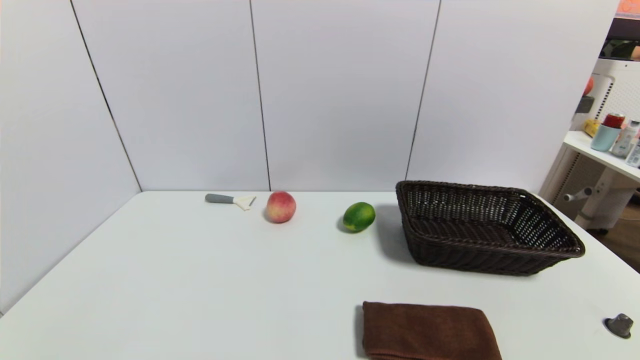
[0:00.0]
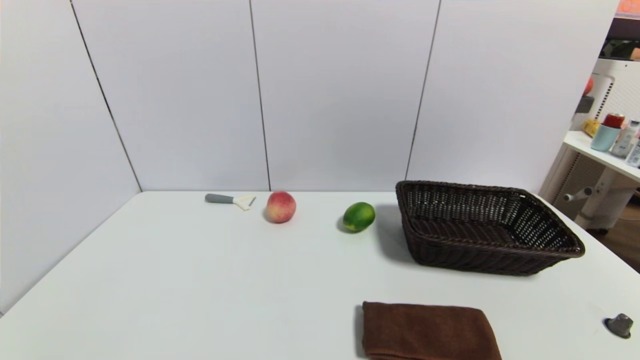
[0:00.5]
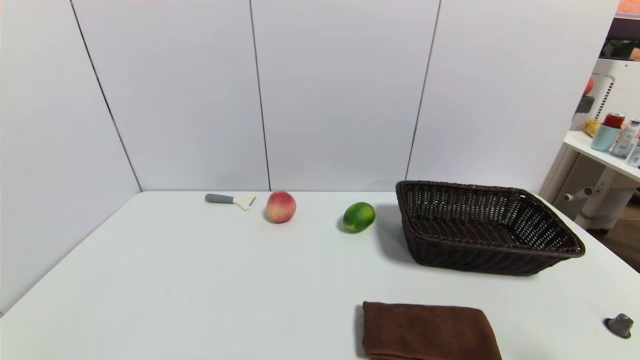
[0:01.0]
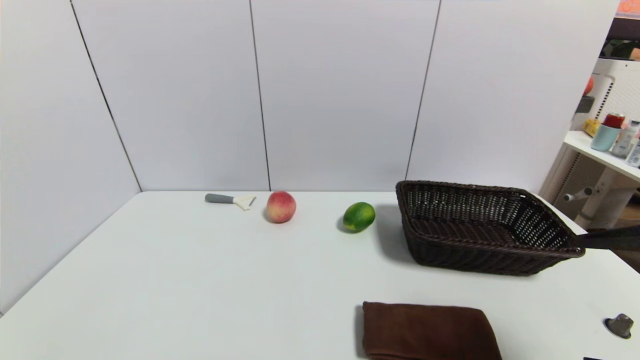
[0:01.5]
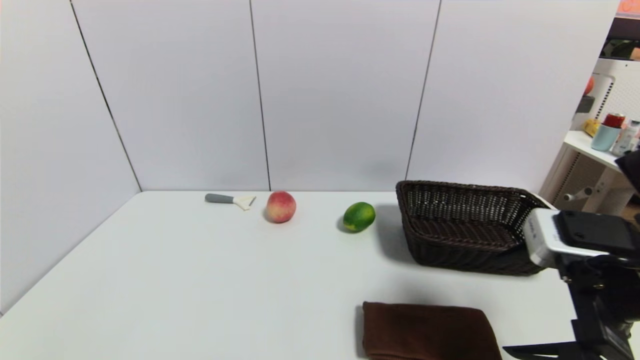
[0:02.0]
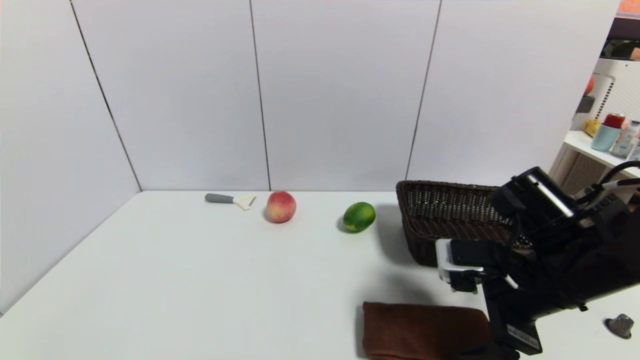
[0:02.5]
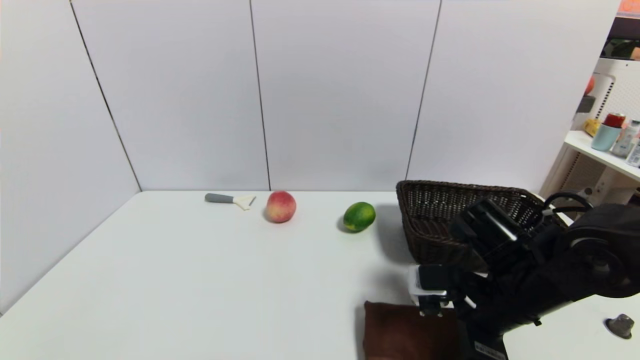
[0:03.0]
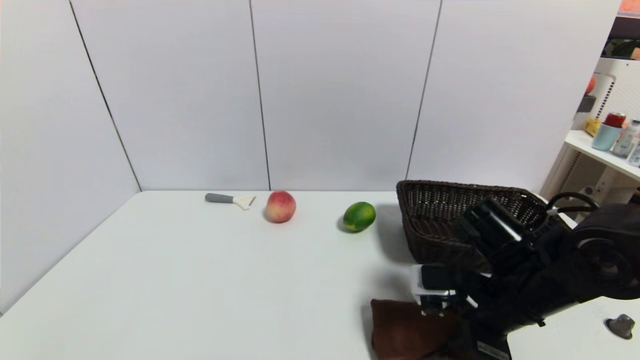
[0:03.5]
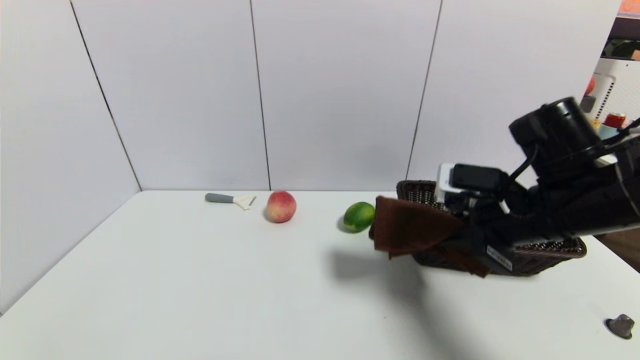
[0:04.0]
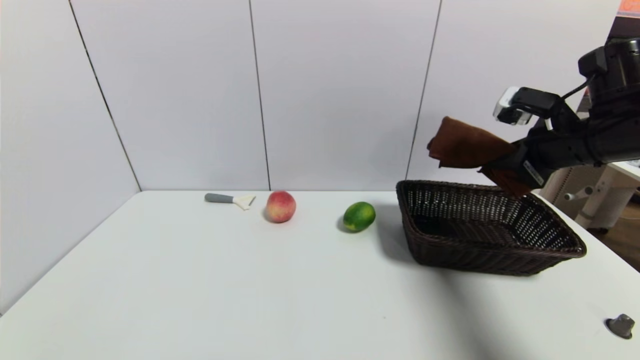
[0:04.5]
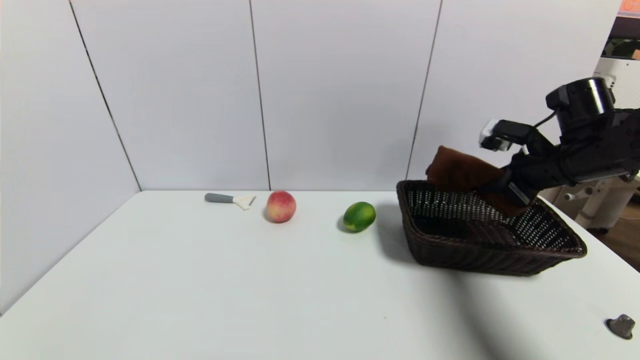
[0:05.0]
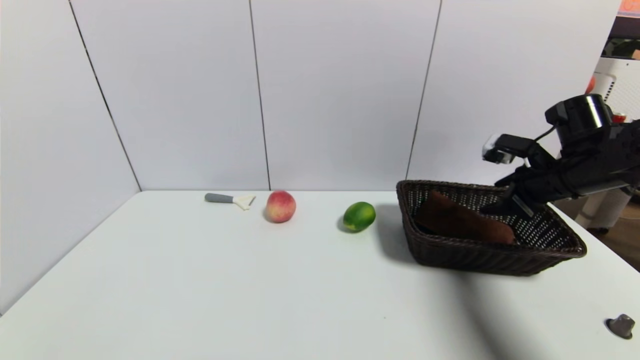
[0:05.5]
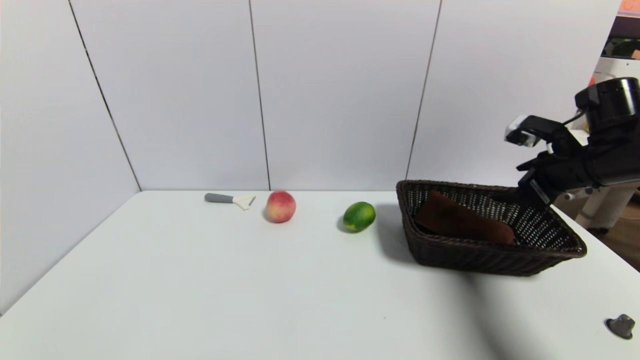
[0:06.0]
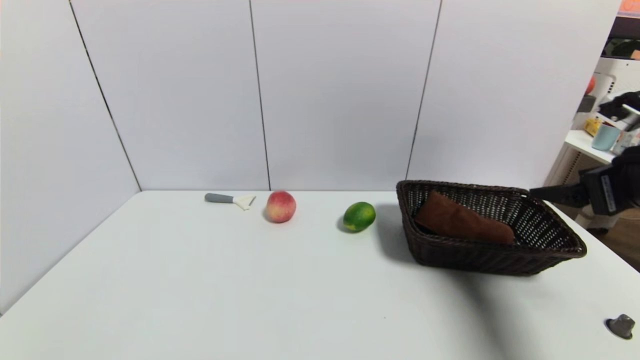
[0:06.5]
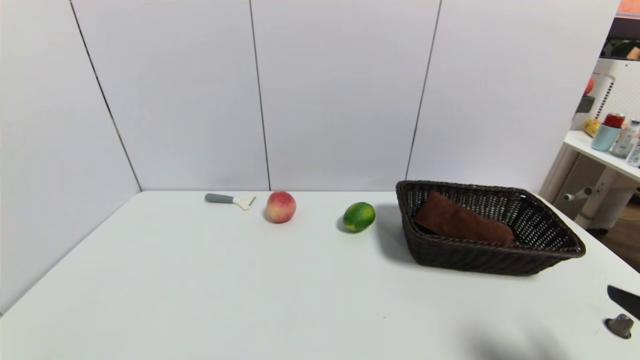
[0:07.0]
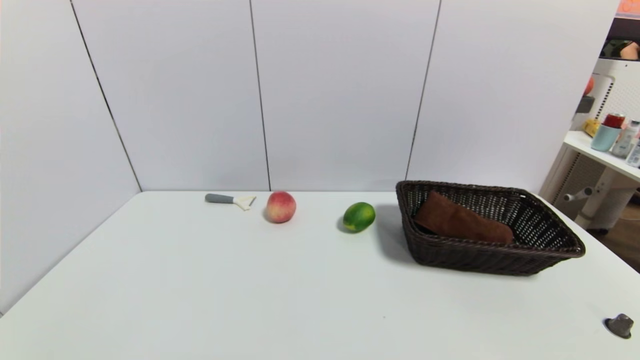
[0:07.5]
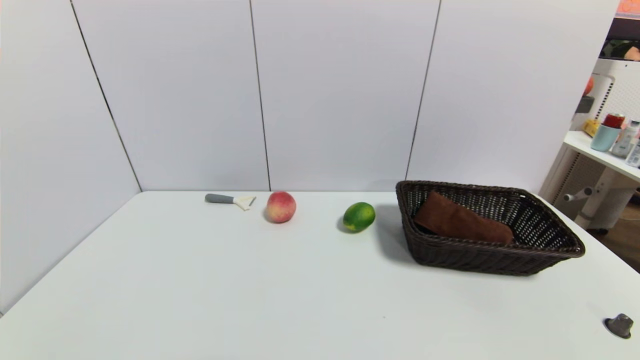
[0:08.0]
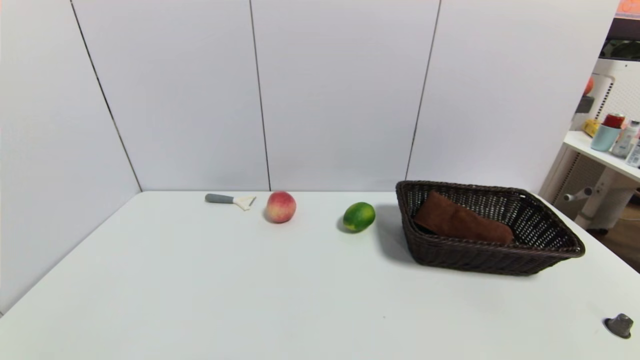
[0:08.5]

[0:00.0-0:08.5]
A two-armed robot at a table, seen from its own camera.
Task of the whole recording: use a gripper to pick the target object and place on the brown basket.
Step, 0:00.0 to 0:03.5: Grasp the brown towel with the right gripper.
Step, 0:04.0 to 0:05.0: Place the brown towel into the basket with the right gripper.
0:00.0 to 0:02.0: The right gripper goes approximately 25 cm forward, upward and to the left.
0:02.0 to 0:04.0: The right gripper travels forward by roughly 10 cm, moves approximately 10 cm downward and comes back, and closes.
0:04.0 to 0:06.5: The right gripper shifts some 10 cm to the right, travels forward and back again, some 10 cm each way, and opens its fingers.
0:06.5 to 0:08.5: The right gripper travels backward and downward by approximately 30 cm.

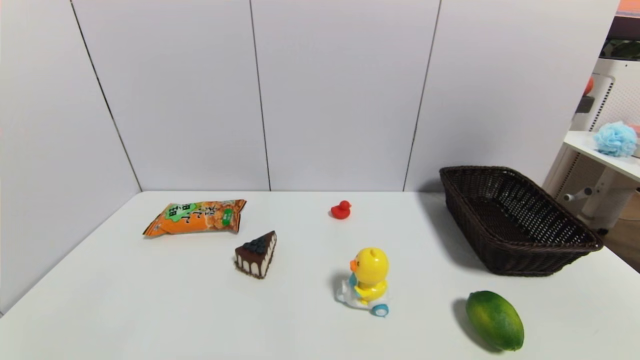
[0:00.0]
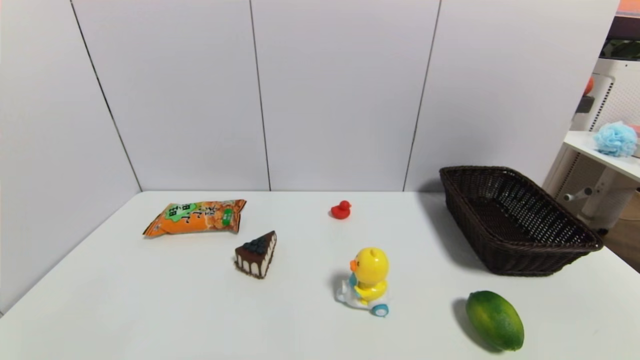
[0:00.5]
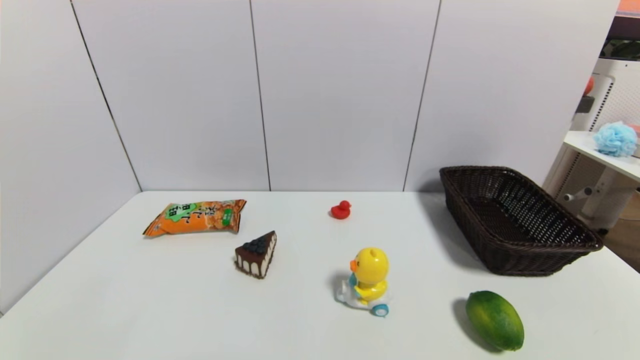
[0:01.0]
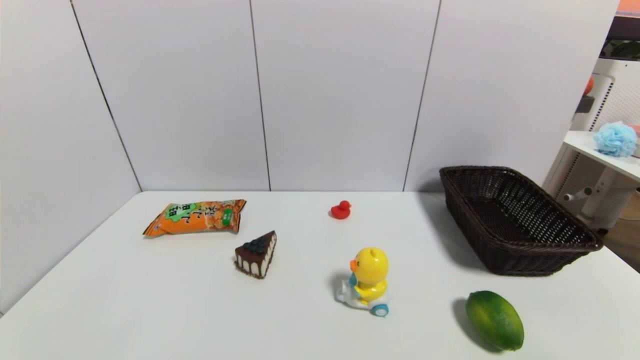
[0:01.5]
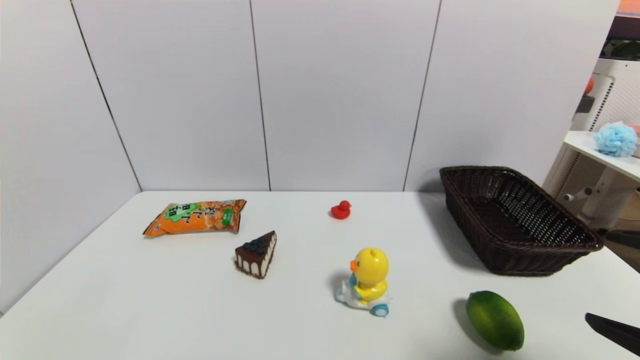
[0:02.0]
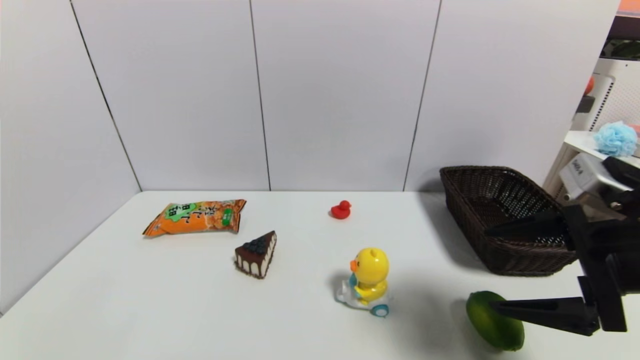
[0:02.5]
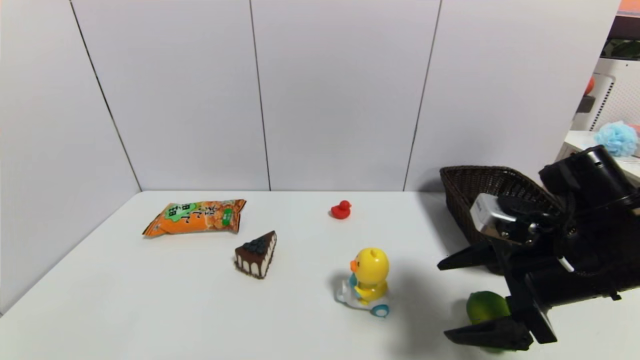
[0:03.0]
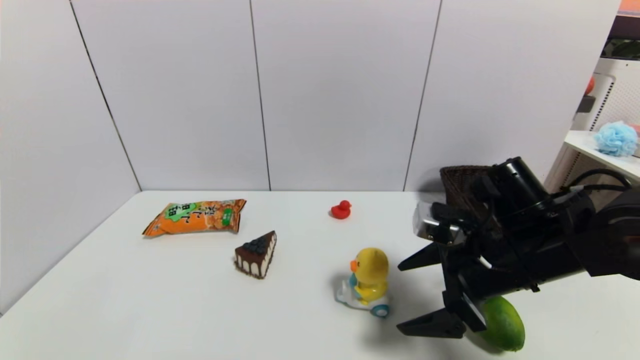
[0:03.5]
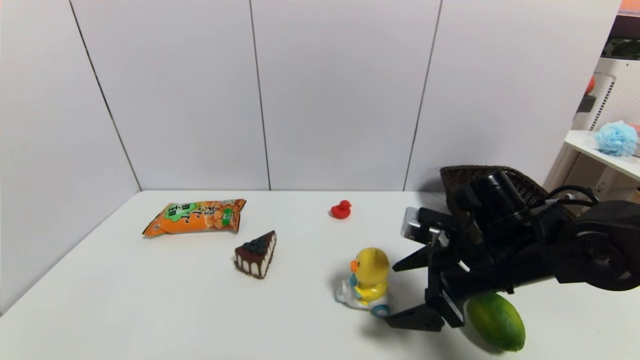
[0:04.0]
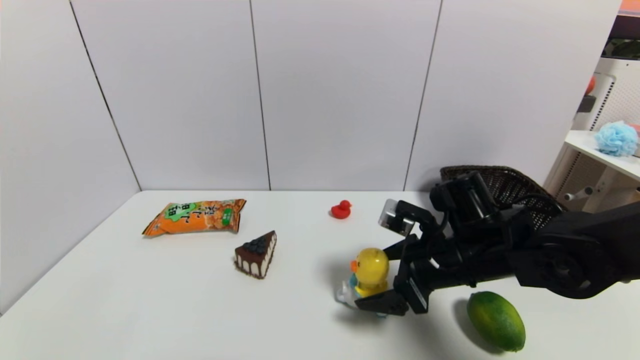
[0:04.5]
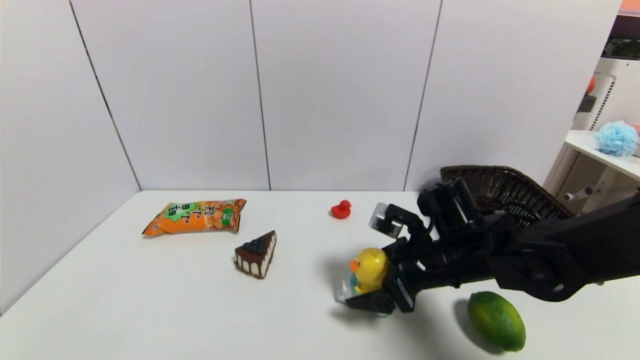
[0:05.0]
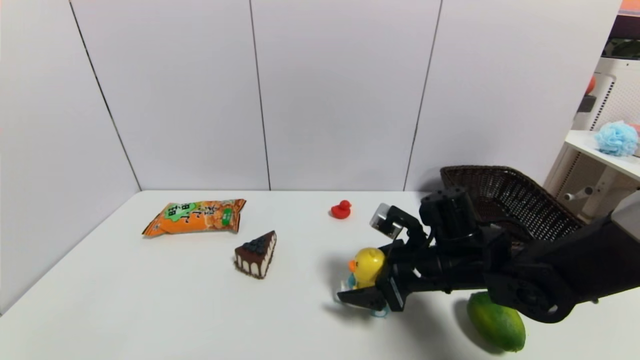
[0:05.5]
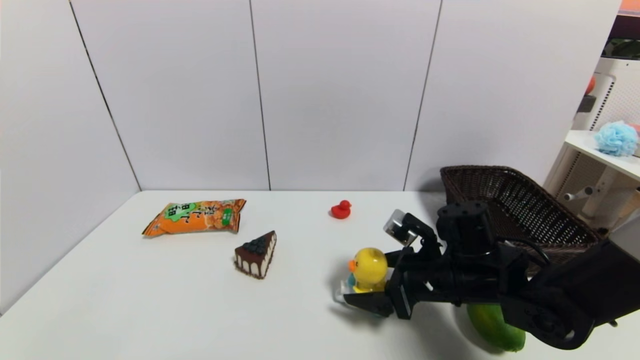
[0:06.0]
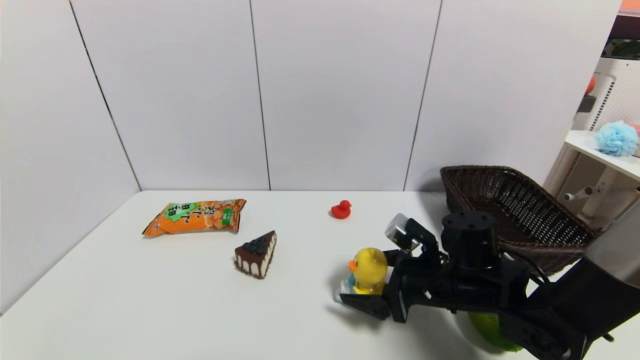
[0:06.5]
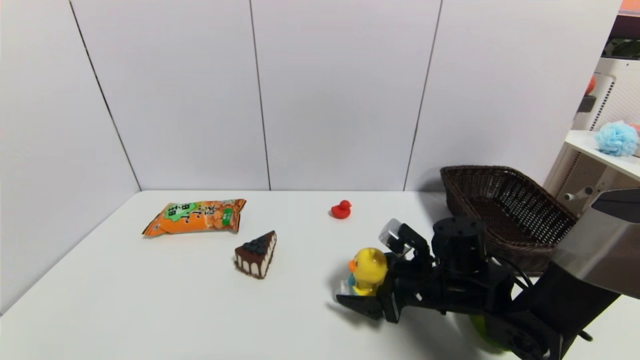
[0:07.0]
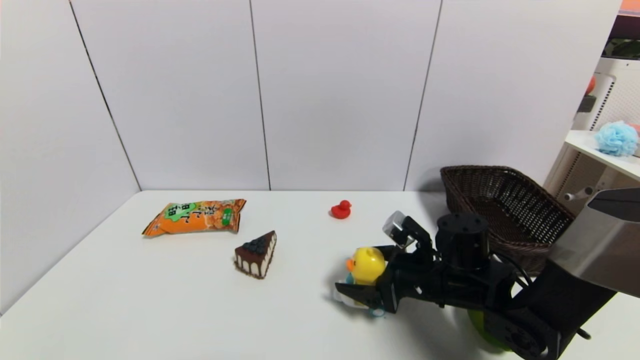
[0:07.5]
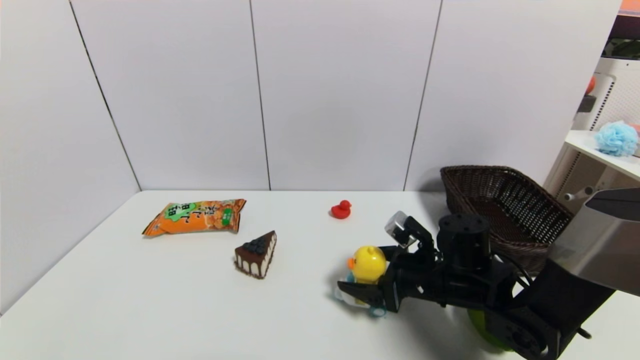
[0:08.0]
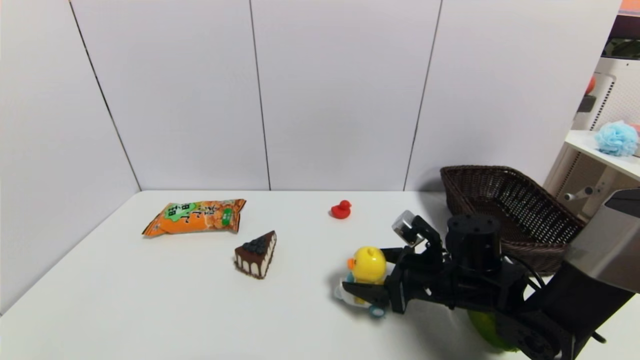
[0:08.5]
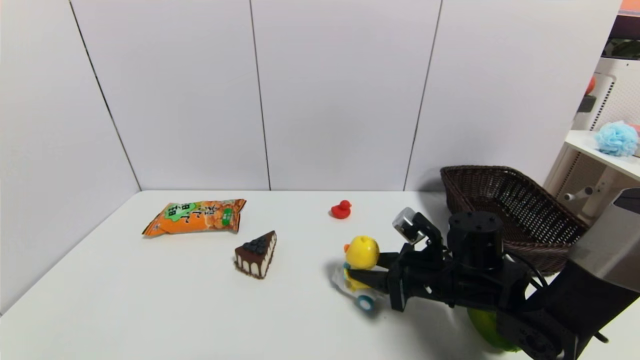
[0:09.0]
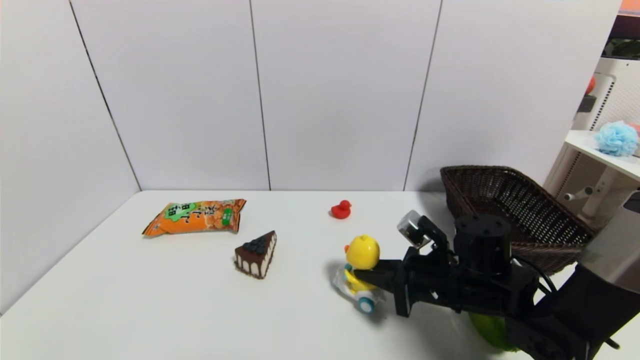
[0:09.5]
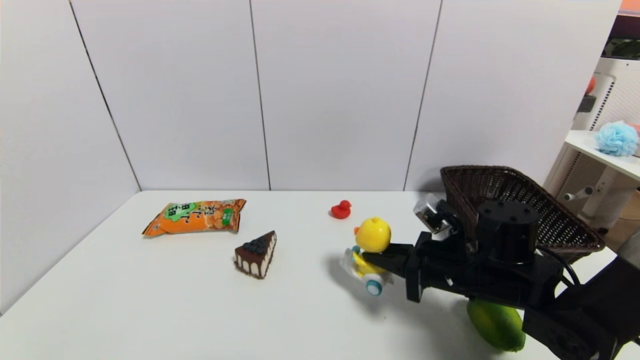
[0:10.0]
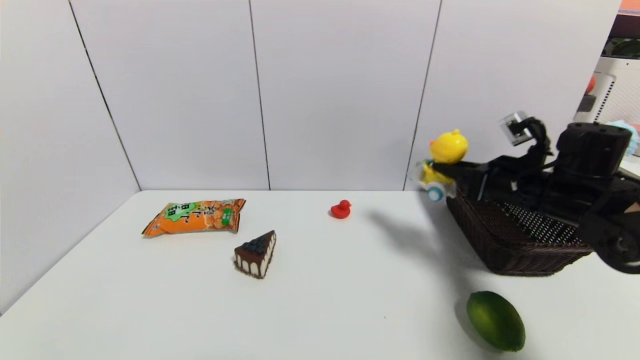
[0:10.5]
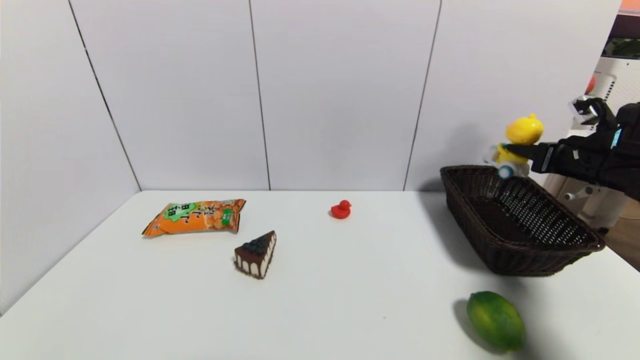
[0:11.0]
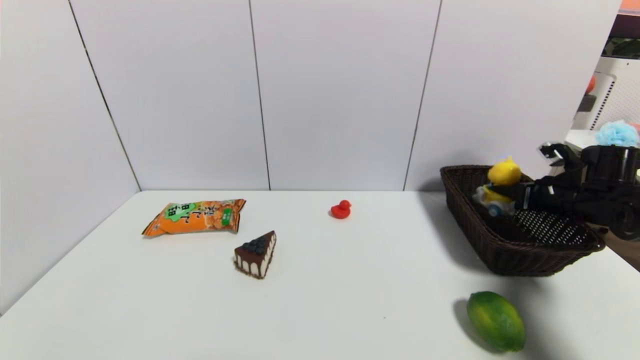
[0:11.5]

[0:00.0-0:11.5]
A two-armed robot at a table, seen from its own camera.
Task of the whole recording: use a gripper to pick the target object and place on the brown basket.
Step, 0:00.0 to 0:09.0: Grasp the duck toy with the right gripper.
0:00.0 to 0:02.0: The right gripper heads upward and forward, covering approximately 20 cm.
0:02.0 to 0:04.0: The right gripper goes about 25 cm forward, to the left and downward.
0:04.0 to 0:06.0: The right gripper moves downward, some 5 cm.
0:06.0 to 0:07.5: The grippers move only a little.
0:07.5 to 0:09.5: The right gripper closes up.
0:09.5 to 0:11.5: The right gripper travels to the right and forward by some 25 cm.
